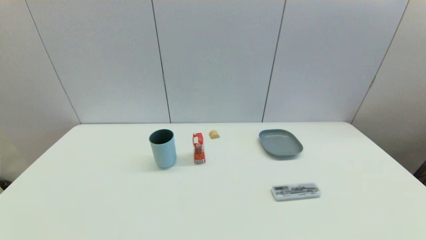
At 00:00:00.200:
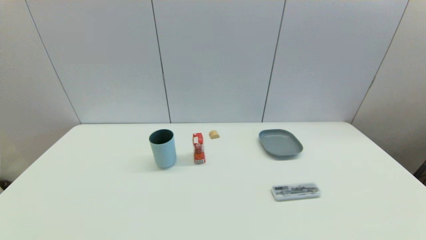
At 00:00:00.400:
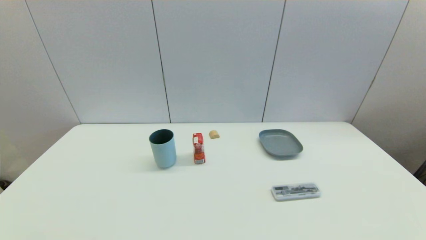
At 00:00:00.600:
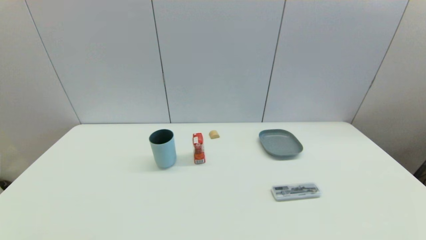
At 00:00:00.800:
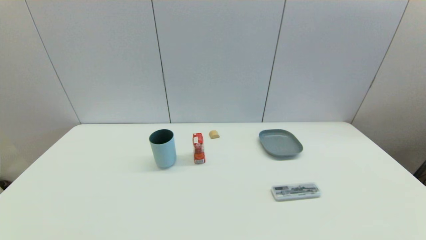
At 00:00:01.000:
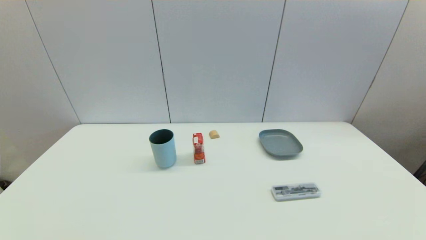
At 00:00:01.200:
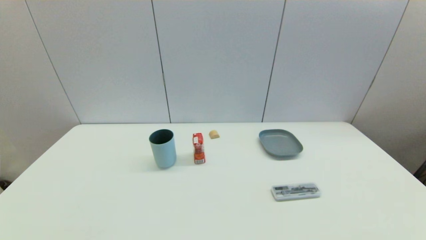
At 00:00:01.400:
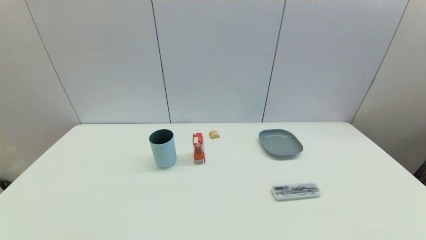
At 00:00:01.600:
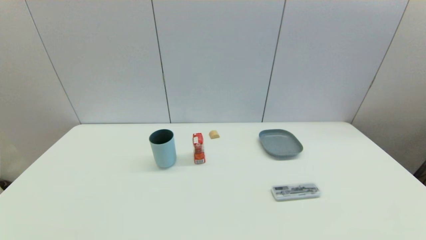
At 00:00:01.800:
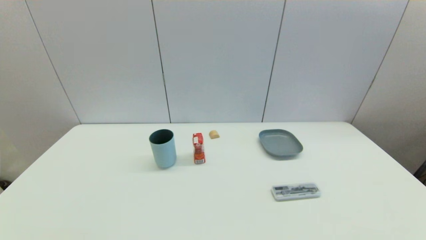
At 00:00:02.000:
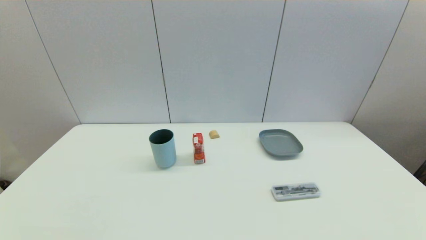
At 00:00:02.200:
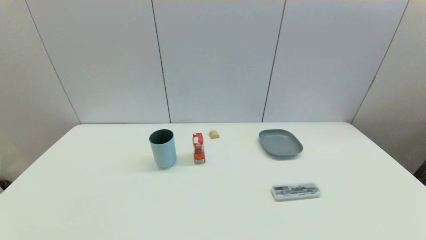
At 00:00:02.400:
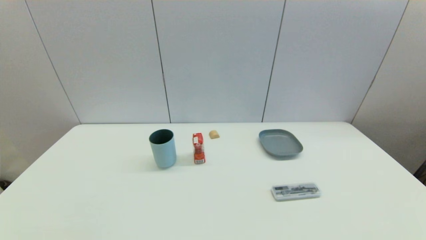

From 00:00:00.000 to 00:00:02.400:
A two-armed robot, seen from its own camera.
From 00:00:01.200 to 00:00:02.400: The two grippers keep their place.
